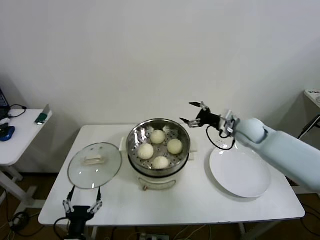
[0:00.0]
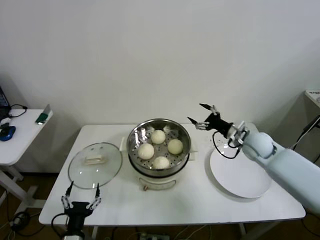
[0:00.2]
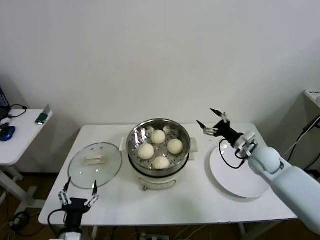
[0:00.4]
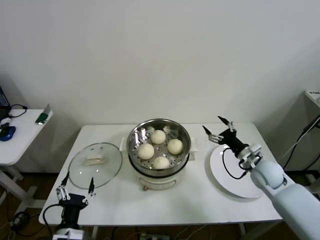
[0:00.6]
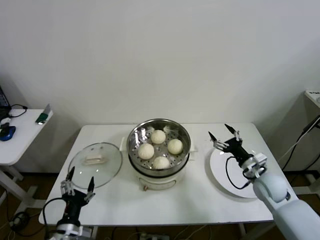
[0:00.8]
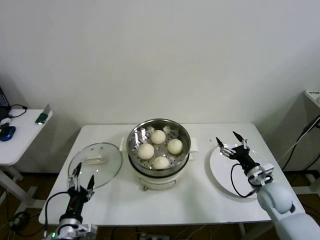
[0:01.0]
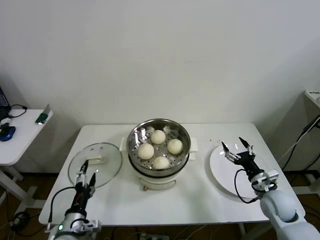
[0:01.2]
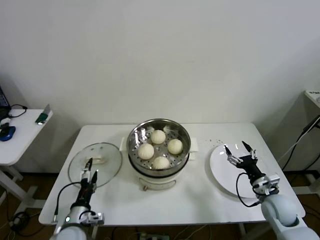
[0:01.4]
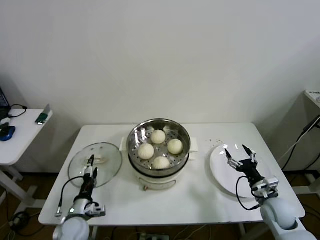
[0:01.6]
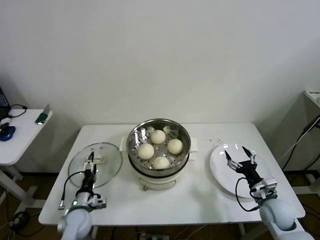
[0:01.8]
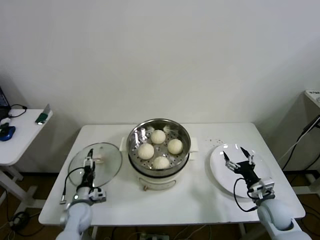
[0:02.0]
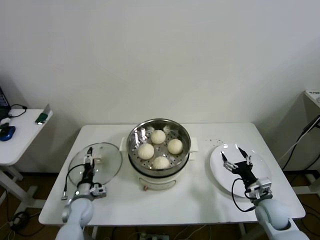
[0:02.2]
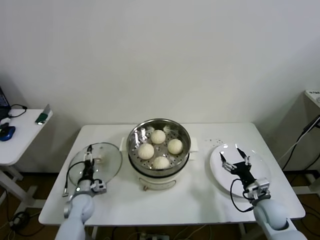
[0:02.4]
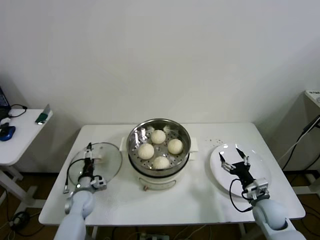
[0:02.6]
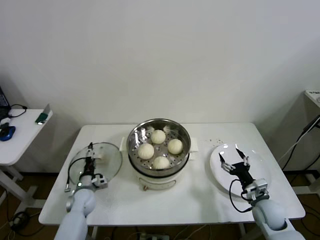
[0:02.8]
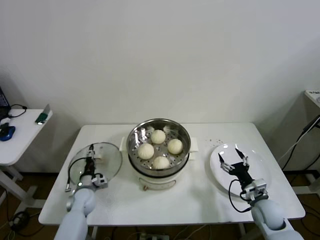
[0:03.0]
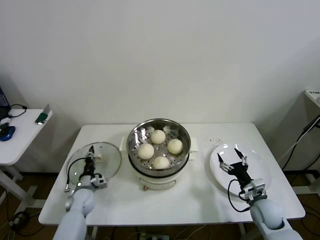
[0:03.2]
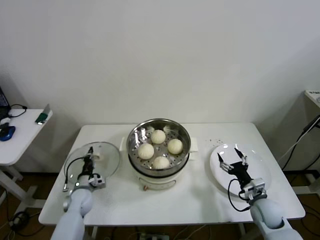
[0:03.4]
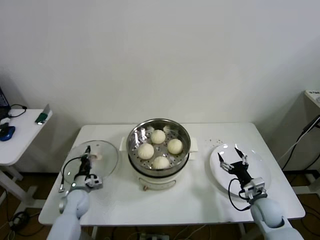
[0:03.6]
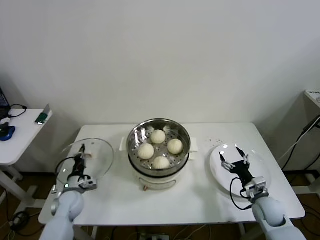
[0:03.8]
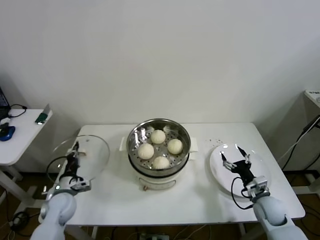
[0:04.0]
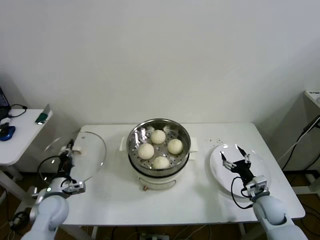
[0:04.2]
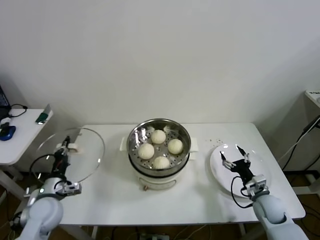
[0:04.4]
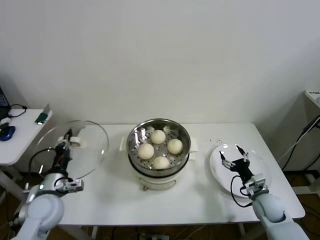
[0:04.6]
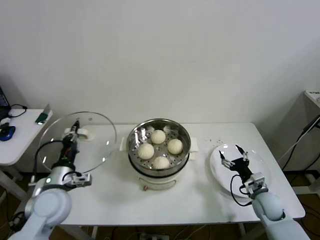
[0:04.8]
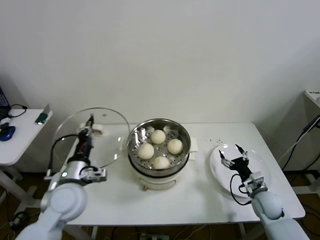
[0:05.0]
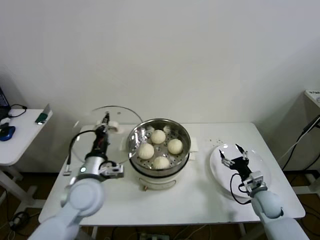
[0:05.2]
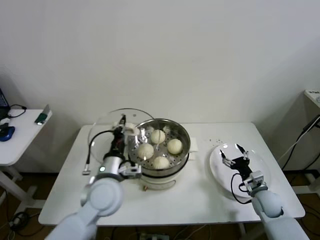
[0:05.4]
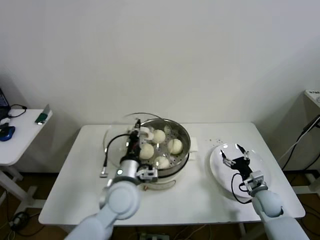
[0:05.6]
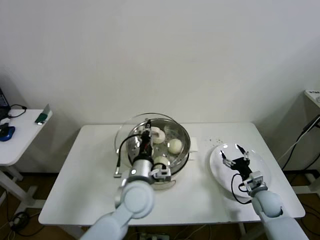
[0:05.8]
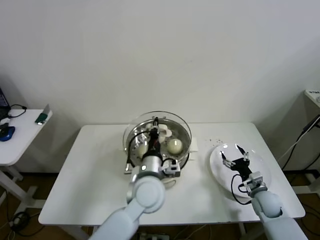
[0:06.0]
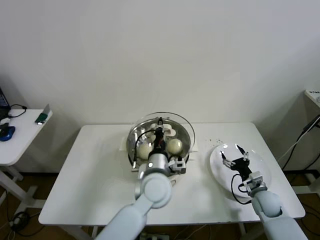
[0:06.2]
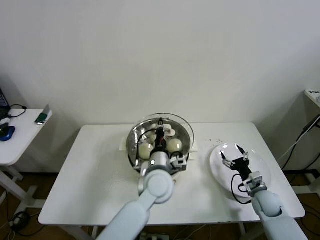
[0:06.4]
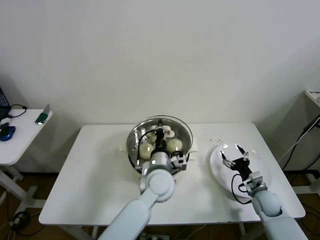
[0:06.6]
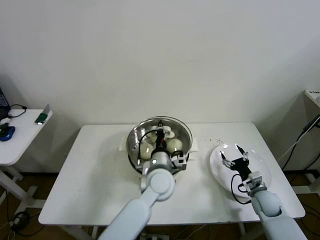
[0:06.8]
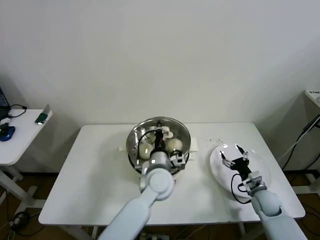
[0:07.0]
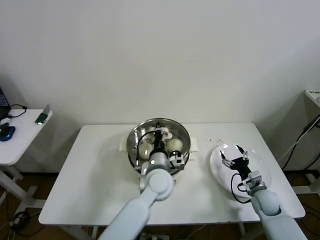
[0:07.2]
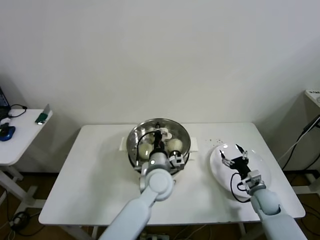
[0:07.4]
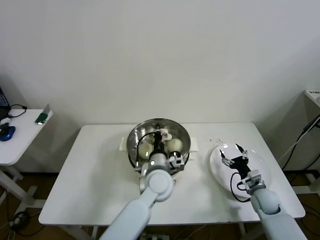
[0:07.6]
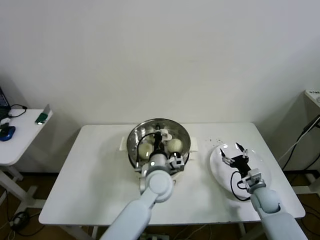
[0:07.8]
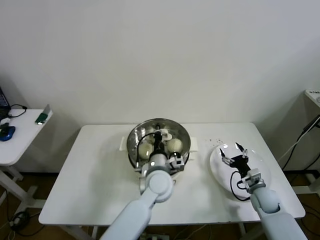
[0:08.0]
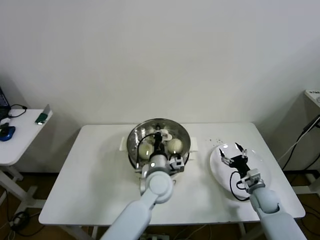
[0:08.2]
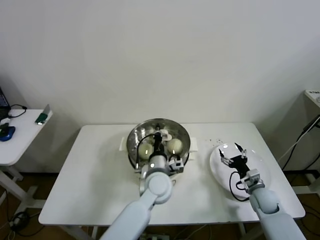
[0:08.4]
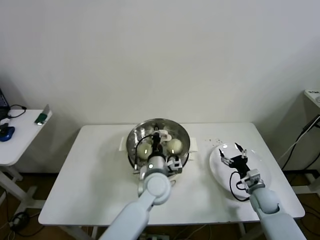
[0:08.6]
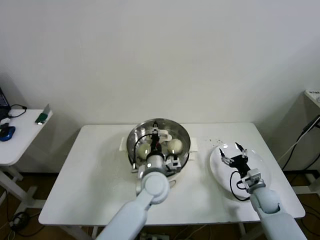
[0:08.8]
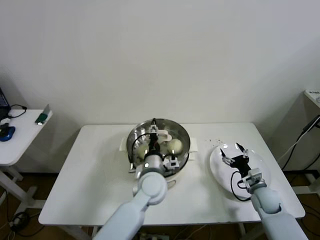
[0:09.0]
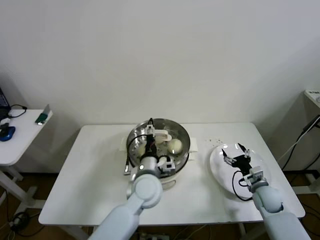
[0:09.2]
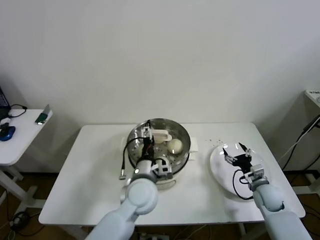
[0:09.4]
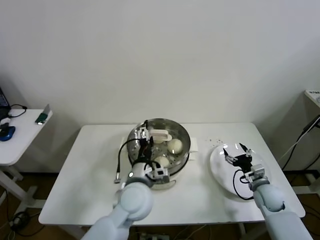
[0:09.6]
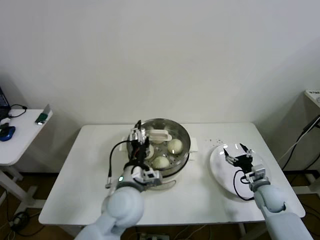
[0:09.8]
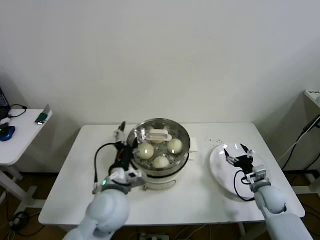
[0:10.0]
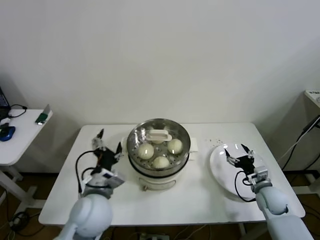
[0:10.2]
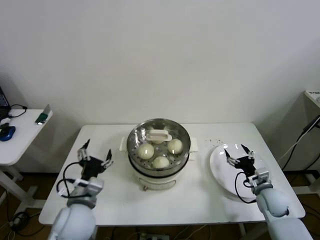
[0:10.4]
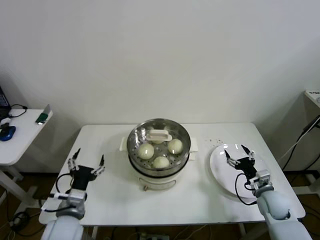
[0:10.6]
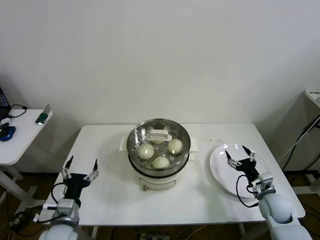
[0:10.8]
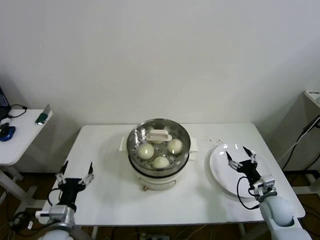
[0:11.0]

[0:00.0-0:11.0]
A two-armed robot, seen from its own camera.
Step, 0:00.0 to 0:03.4: Grasp the pot lid with left gripper.
Step, 0:03.6 to 0:09.4: Place the pot lid on the steamer with left gripper.
0:00.0 to 0:01.6: The right gripper travels backward and downward by approximately 25 cm, while the left gripper shifts some 15 cm forward.
0:01.6 to 0:03.2: The left gripper heads forward and downward, covering some 15 cm, and closes.
0:03.2 to 0:04.8: The left gripper moves upward and backward, about 25 cm, and closes its fingers.
0:04.8 to 0:06.2: The left gripper shifts some 30 cm to the right.
0:06.2 to 0:07.8: The left gripper moves roughly 5 cm.
0:07.8 to 0:09.4: The left gripper shifts by about 5 cm, and opens up.
0:09.4 to 0:11.0: The left gripper heads to the left and backward, covering about 25 cm.
